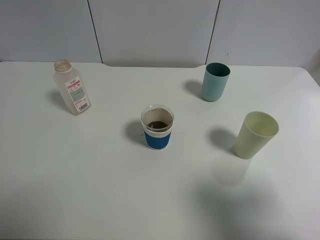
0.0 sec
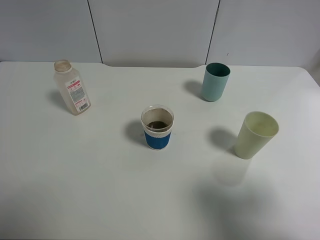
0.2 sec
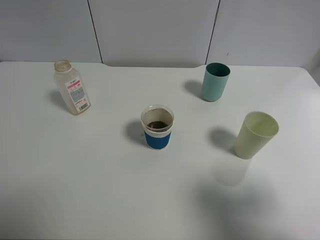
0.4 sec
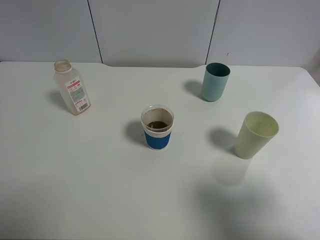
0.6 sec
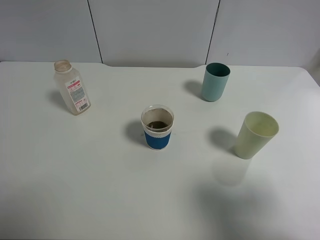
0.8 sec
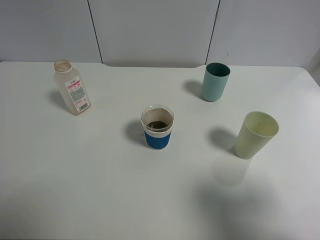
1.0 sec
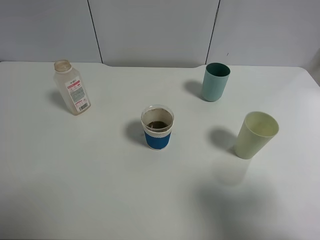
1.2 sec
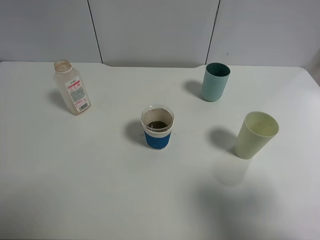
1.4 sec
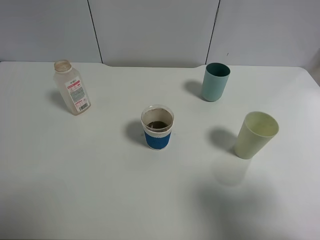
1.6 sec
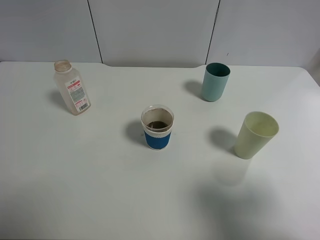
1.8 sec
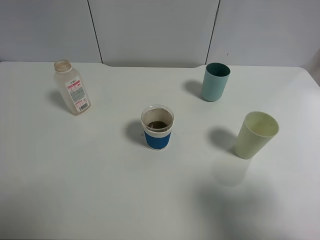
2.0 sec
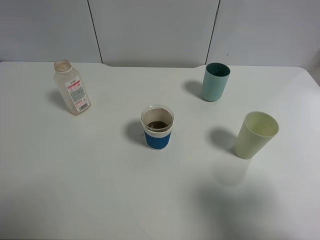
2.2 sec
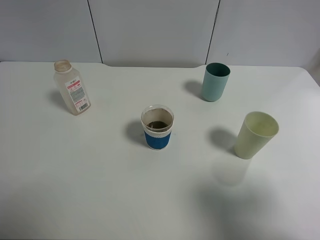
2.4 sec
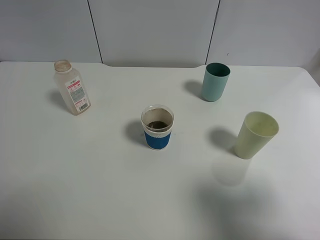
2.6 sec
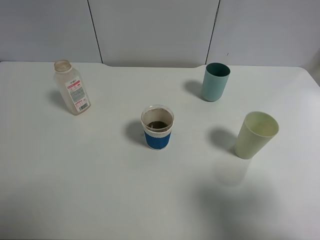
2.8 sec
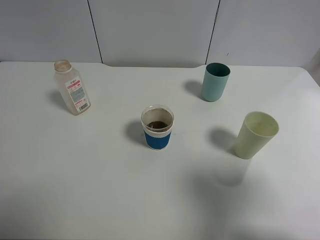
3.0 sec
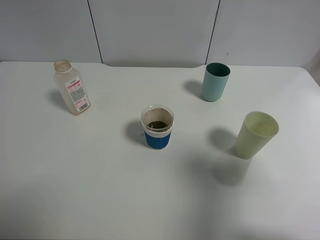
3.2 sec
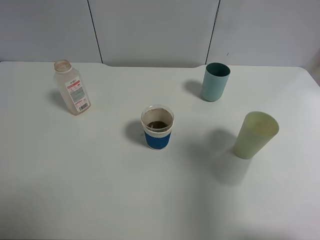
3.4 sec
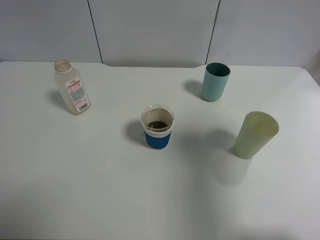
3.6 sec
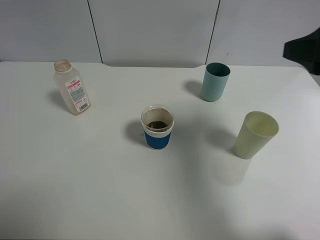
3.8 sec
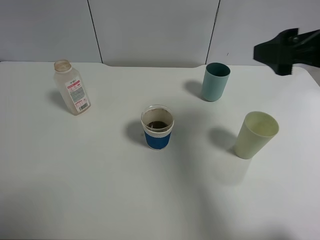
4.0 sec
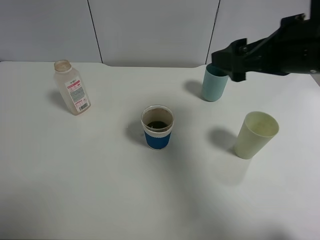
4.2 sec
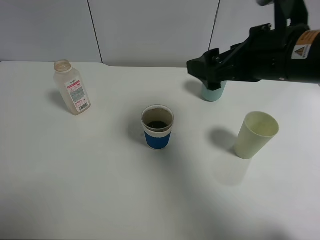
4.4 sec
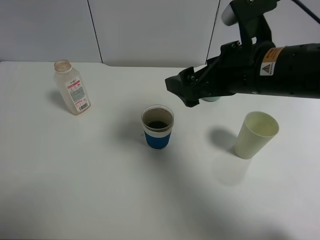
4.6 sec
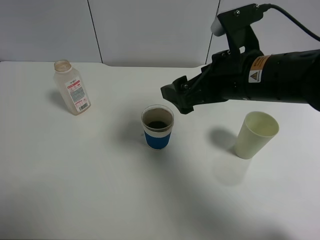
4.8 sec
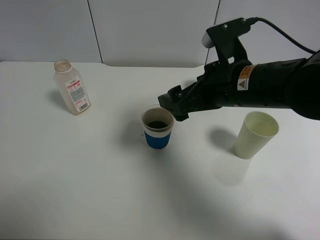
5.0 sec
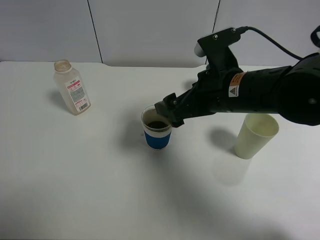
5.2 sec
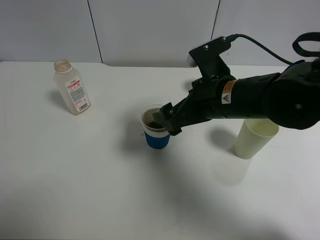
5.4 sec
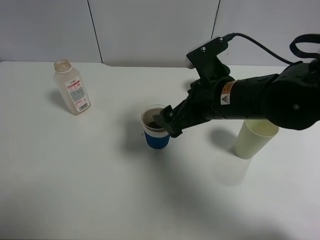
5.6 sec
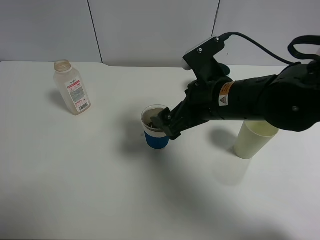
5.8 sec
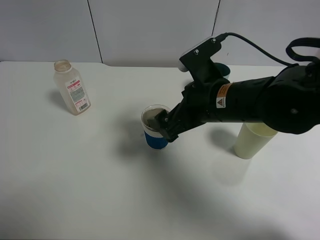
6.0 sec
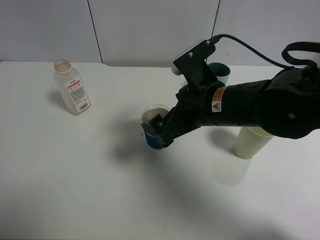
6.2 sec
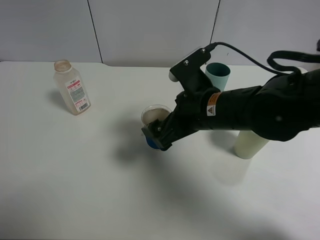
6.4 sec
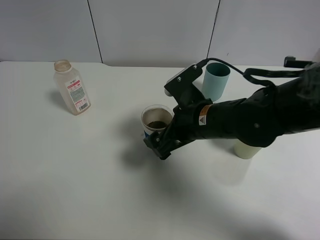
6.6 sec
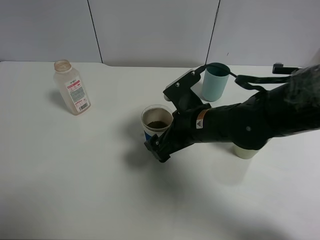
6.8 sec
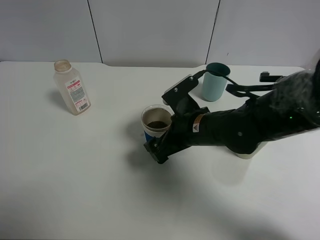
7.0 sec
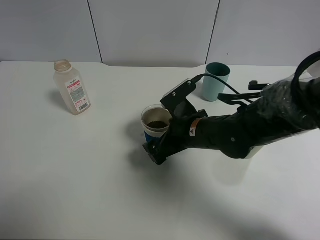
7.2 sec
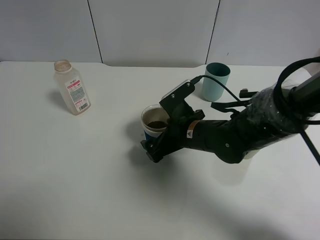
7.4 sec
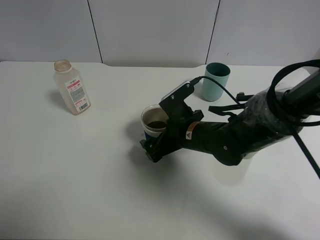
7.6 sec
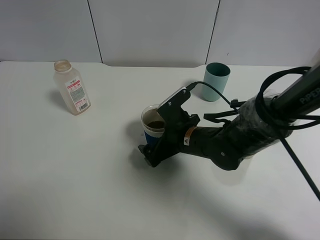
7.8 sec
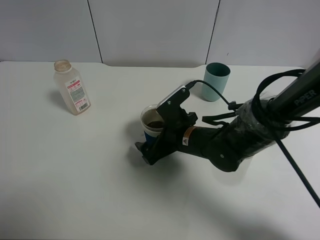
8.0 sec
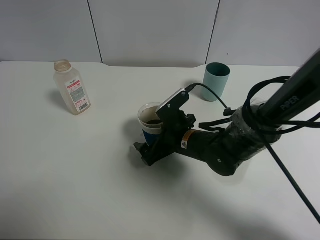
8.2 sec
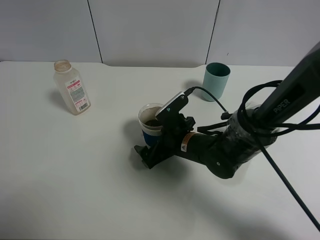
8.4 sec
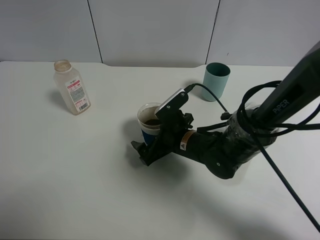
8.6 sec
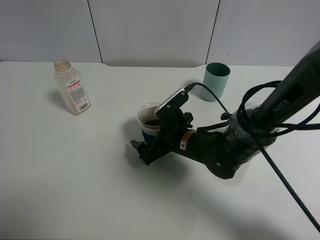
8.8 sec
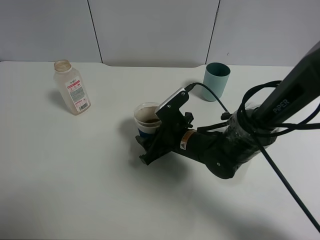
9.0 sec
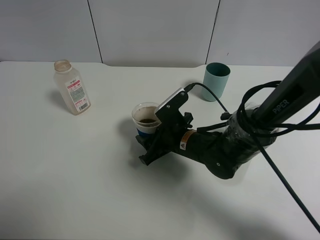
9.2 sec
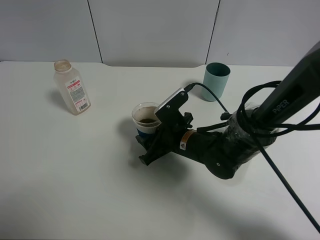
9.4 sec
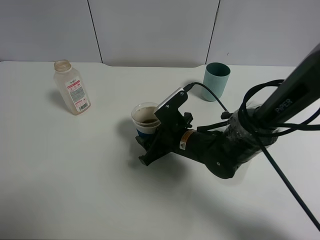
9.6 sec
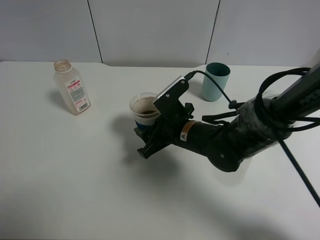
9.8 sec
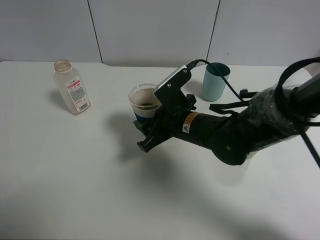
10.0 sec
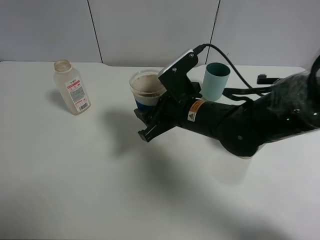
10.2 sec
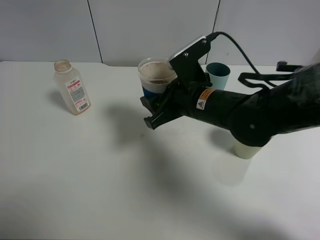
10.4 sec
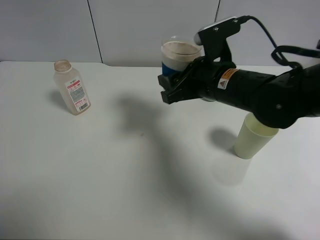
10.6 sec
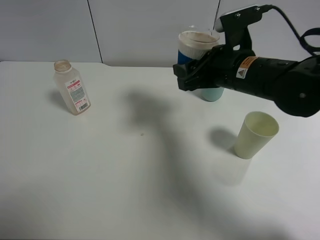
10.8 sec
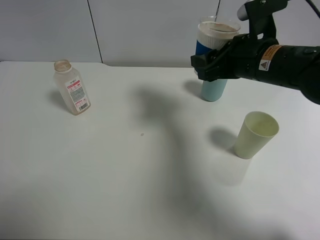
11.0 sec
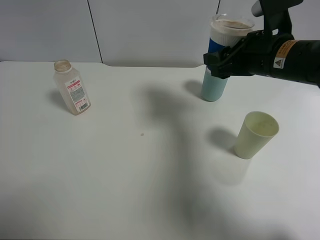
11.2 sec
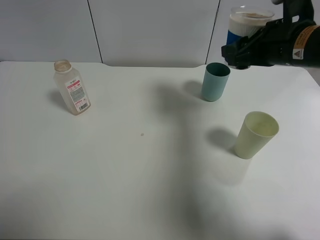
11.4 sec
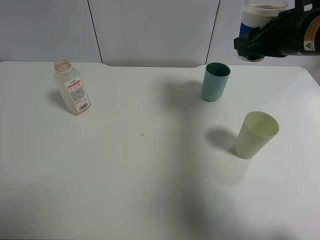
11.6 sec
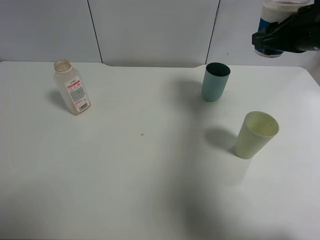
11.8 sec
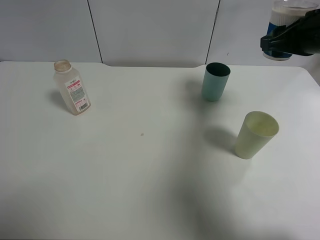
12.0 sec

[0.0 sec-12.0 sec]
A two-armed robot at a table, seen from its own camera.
Task of the whole recording: use a clamp to hold the bottle of the drink, pour the beverage into a random cup, then clamp the cup containing the drink and pour the drink into another random cup.
Step, 0.0 sec to 9.6 sec: Pick up the paper cup with right gripper.
1.6 sec to 3.0 sec: The grippers stay close to where they were, moving slightly.
3.0 sec to 4.4 sec: The right gripper heads forward and to the left, covering roughly 20 cm.
4.4 sec to 6.0 sec: The right gripper shifts some 10 cm downward and to the left.
6.0 sec to 7.6 sec: The right gripper is displaced downward by some 10 cm.
7.6 sec to 9.0 sec: The right gripper closes up.
9.0 sec to 10.4 sec: The right gripper heads upward, covering about 10 cm.
10.4 sec to 12.0 sec: The right gripper goes about 20 cm to the right and upward.

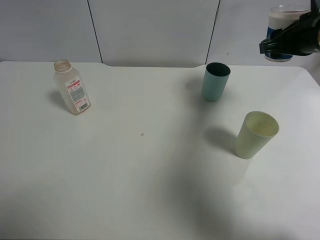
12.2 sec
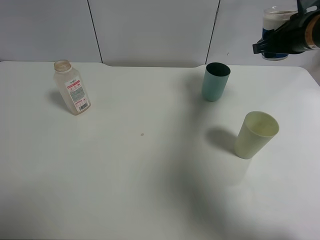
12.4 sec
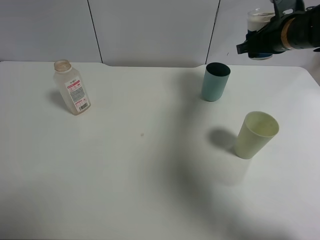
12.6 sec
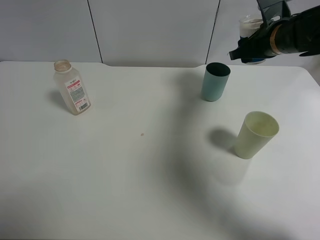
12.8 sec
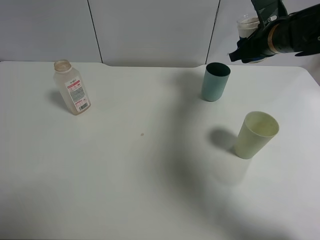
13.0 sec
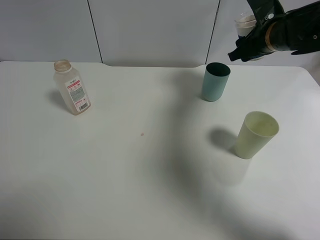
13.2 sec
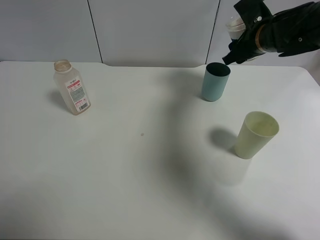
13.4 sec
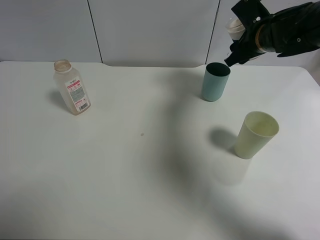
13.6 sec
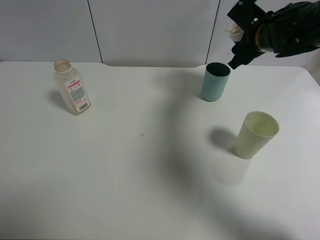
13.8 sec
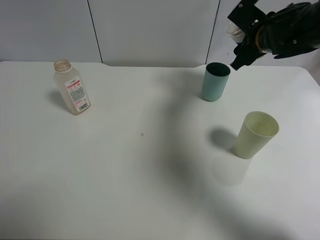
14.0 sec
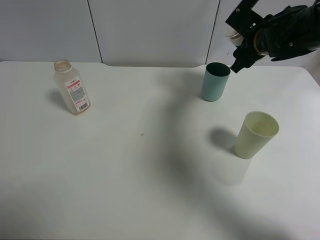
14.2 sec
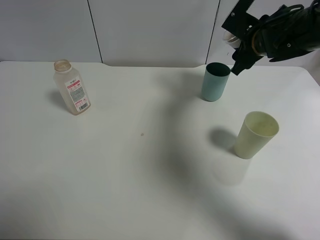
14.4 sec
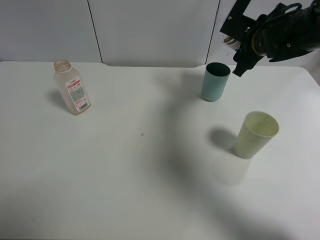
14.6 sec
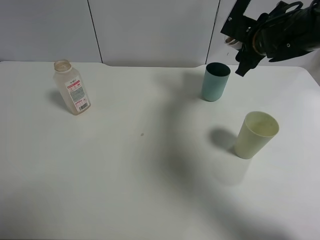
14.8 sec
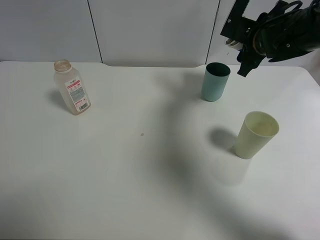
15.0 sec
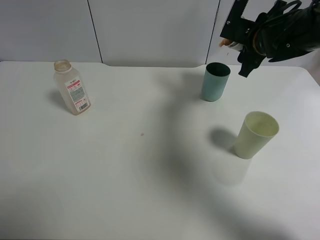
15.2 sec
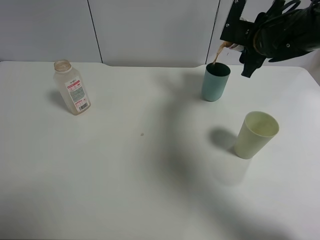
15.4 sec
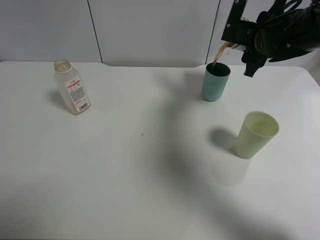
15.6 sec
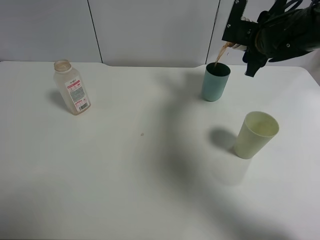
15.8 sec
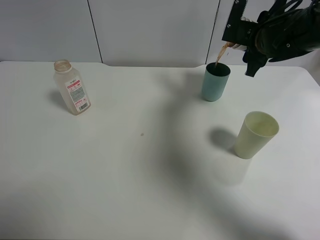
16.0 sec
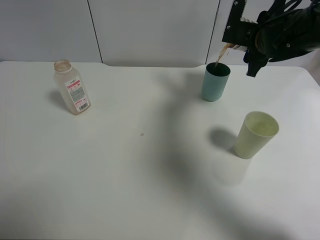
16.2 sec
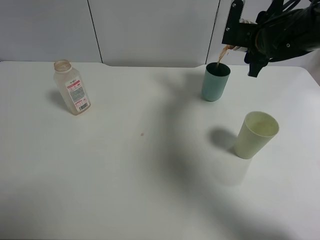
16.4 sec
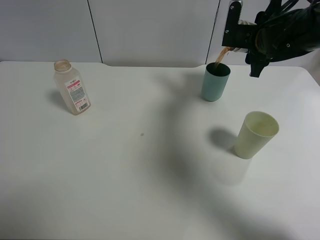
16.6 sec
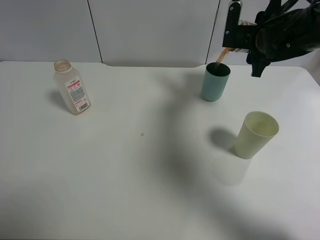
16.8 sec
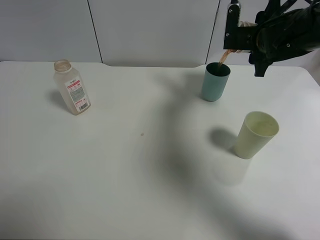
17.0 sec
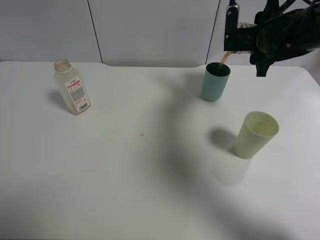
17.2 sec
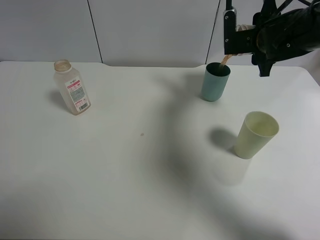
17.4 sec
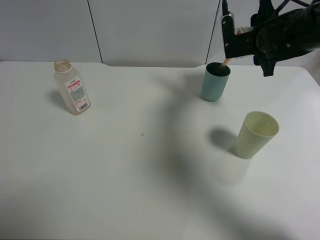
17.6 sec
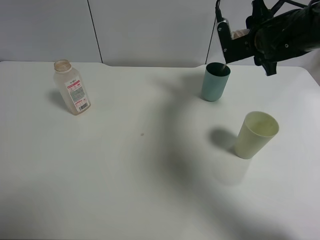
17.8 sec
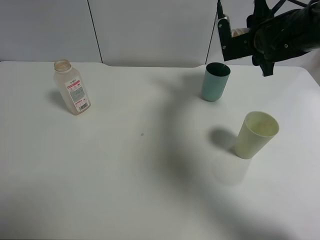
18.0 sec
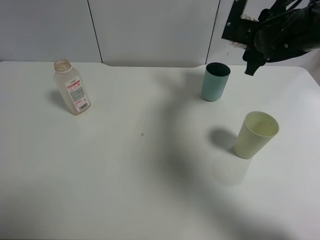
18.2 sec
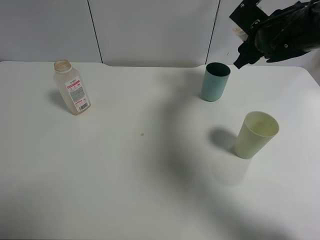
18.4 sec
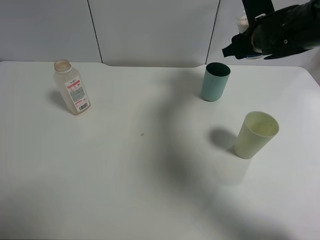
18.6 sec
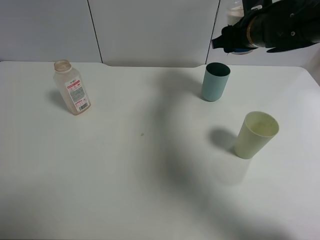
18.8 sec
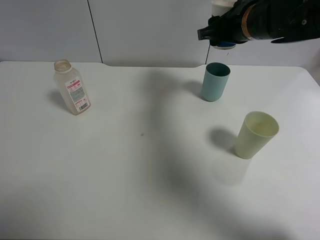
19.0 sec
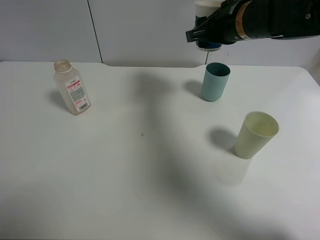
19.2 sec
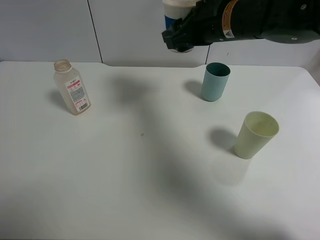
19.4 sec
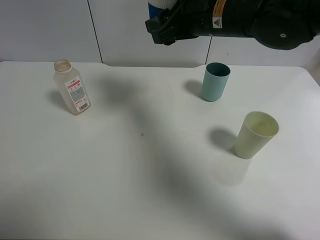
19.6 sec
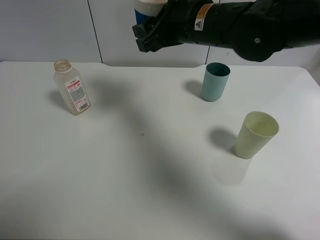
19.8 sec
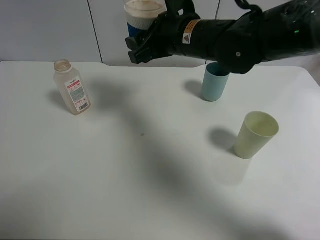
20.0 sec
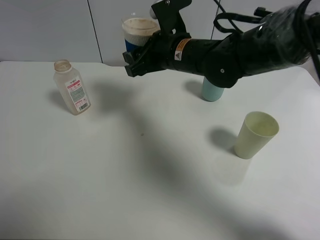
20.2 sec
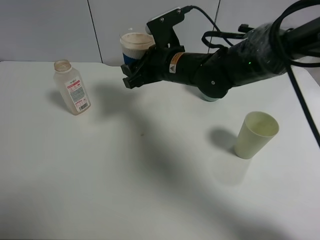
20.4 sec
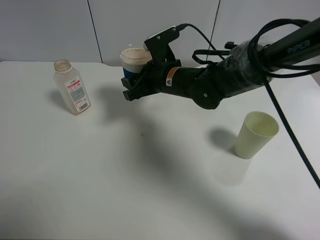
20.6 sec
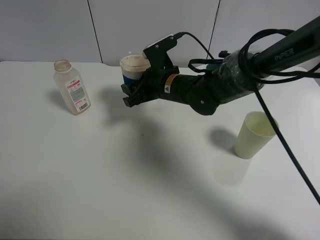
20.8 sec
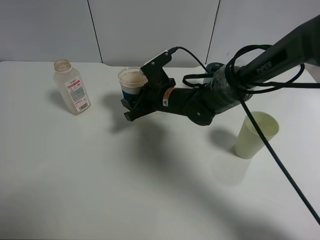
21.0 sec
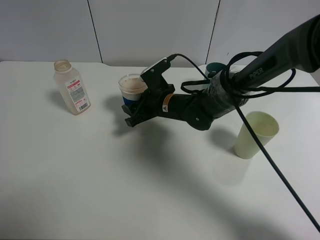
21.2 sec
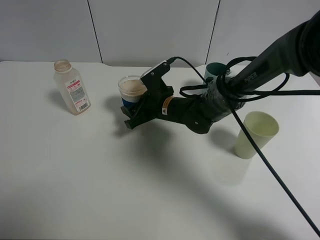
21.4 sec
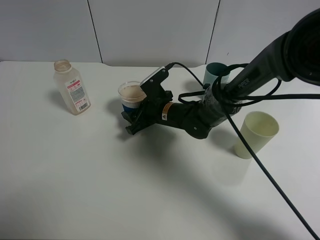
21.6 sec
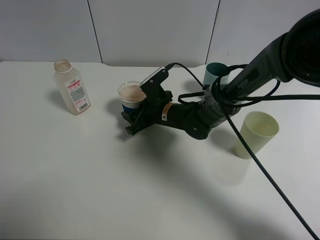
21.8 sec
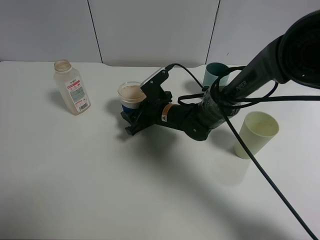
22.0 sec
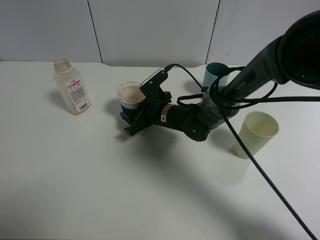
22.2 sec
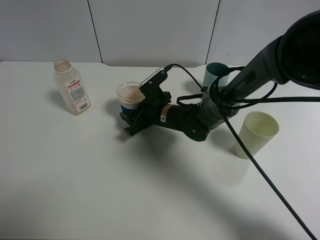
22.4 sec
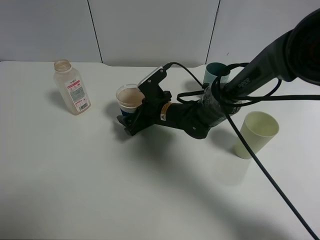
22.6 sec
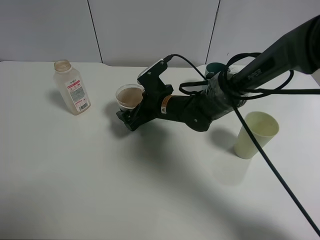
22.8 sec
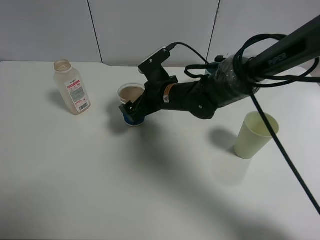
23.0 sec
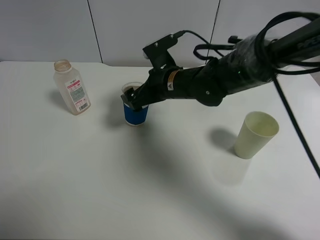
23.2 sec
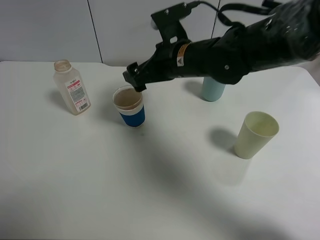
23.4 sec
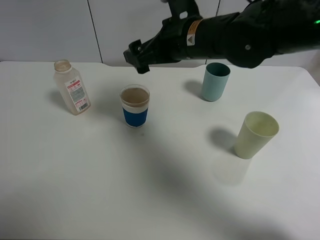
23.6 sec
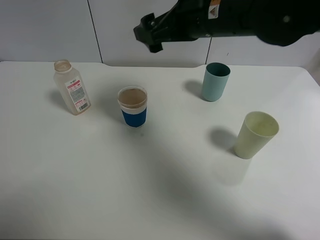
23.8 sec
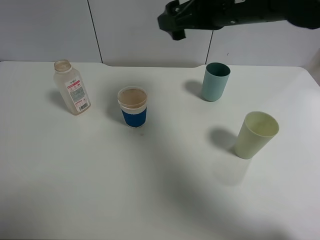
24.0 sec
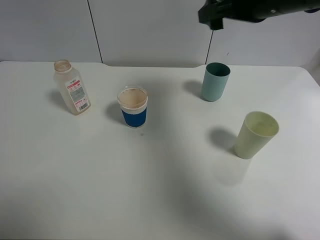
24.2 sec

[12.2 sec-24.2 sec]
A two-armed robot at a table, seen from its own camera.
Task of the whole recording: use a clamp to hold the bottle of the drink, pour the beverage into a random cup, then clamp the cup containing the drink and pour the drink into another random cup.
Step, 12.2 sec to 18.0 sec: Pour the drink into the blue plastic cup with right gripper.
Step, 18.2 sec to 22.8 sec: Place the paper cup on the table with right gripper.
12.2 sec to 13.8 sec: The right gripper shifts approximately 10 cm to the left and forward.
15.2 sec to 16.6 sec: The grippers stay close to where they were, moving slightly.
18.2 sec to 19.8 sec: The right gripper moves to the left and backward, some 15 cm.
19.8 sec to 21.2 sec: The right gripper is displaced downward by about 20 cm.
21.2 sec to 22.6 sec: The right gripper opens.
22.6 sec to 24.2 sec: The right gripper is displaced upward and to the right by approximately 30 cm.
